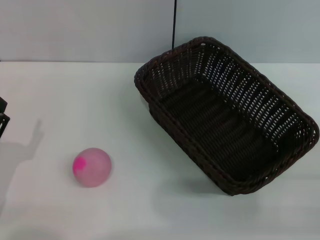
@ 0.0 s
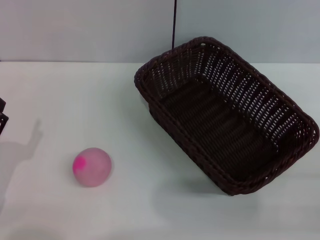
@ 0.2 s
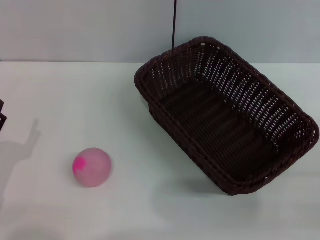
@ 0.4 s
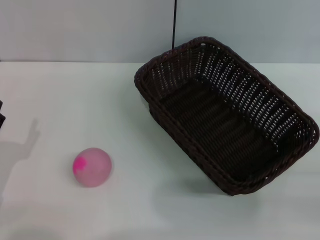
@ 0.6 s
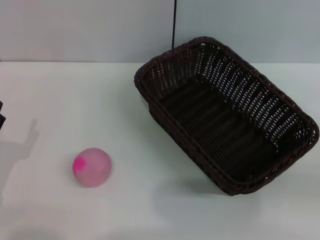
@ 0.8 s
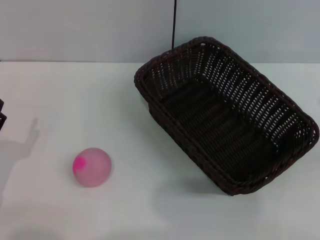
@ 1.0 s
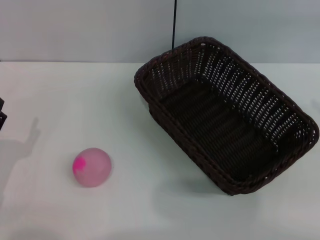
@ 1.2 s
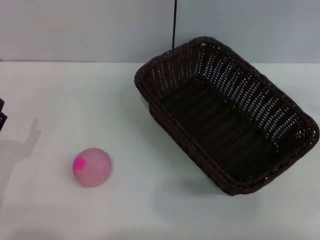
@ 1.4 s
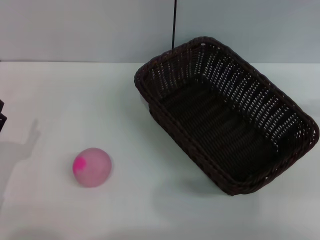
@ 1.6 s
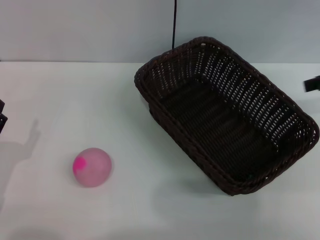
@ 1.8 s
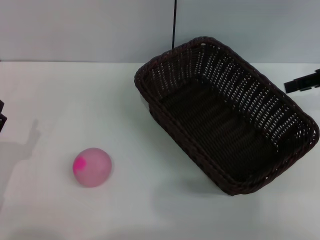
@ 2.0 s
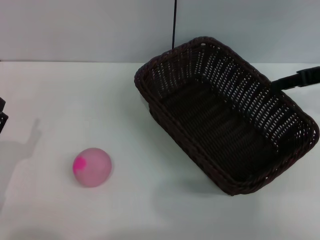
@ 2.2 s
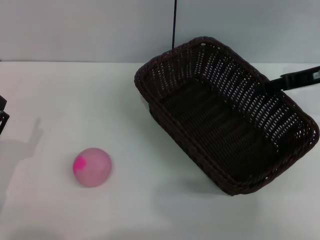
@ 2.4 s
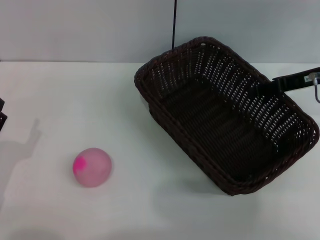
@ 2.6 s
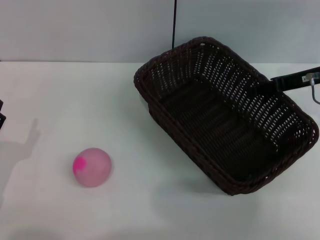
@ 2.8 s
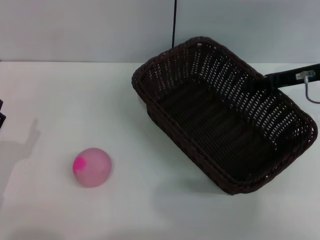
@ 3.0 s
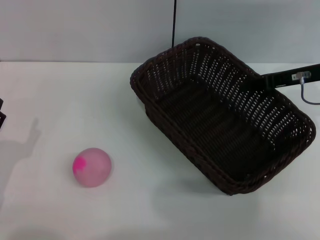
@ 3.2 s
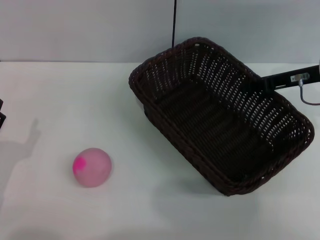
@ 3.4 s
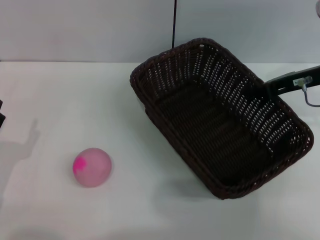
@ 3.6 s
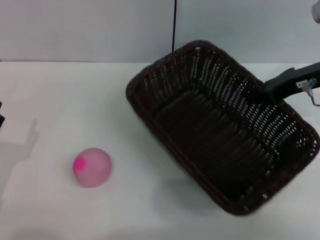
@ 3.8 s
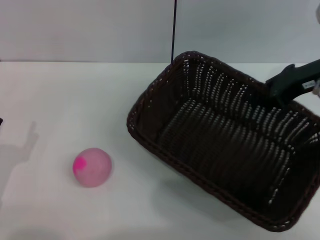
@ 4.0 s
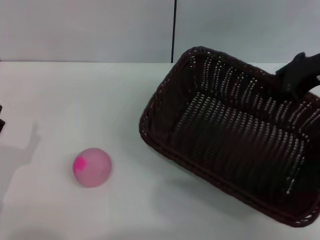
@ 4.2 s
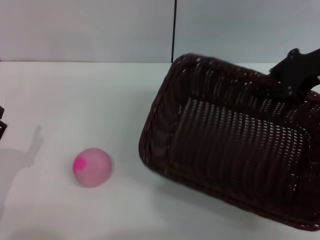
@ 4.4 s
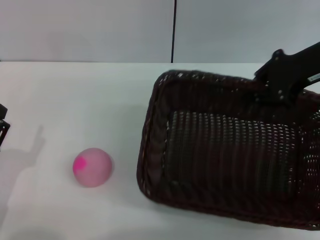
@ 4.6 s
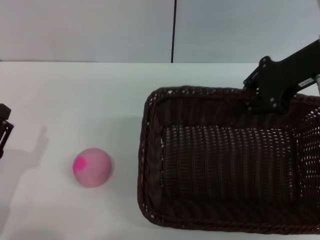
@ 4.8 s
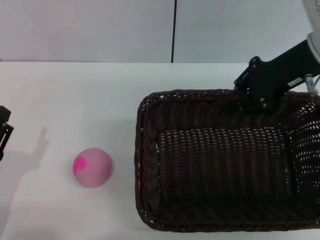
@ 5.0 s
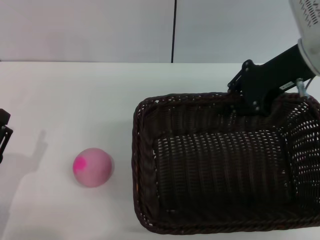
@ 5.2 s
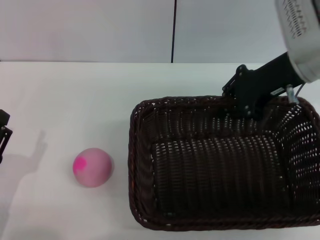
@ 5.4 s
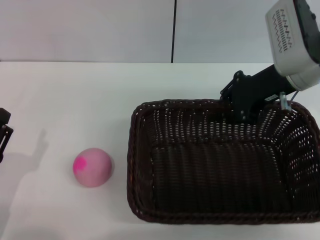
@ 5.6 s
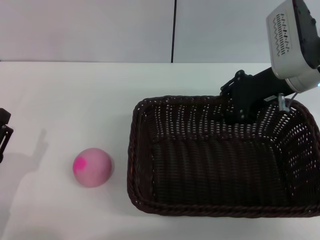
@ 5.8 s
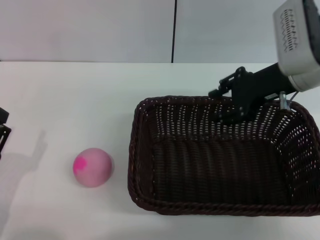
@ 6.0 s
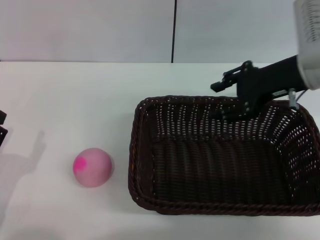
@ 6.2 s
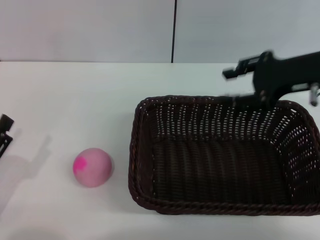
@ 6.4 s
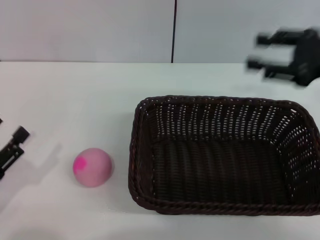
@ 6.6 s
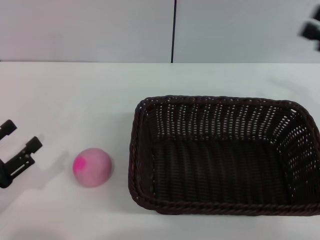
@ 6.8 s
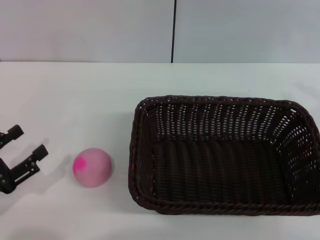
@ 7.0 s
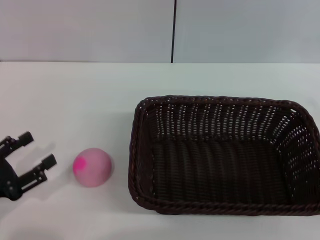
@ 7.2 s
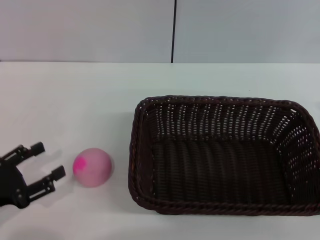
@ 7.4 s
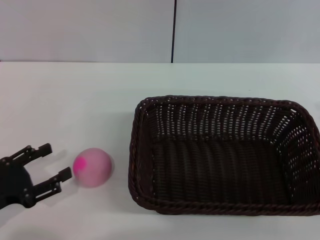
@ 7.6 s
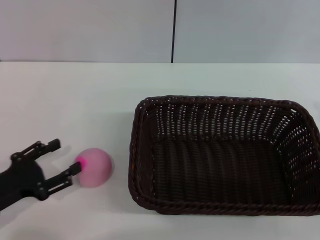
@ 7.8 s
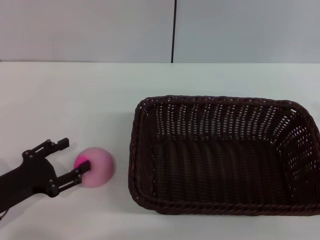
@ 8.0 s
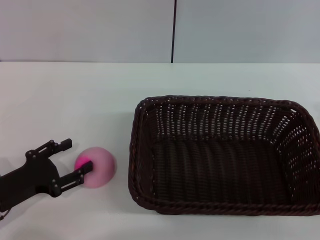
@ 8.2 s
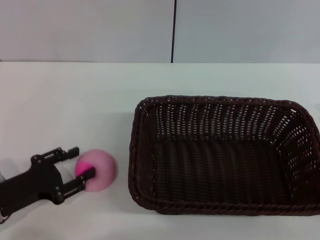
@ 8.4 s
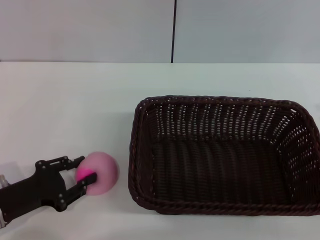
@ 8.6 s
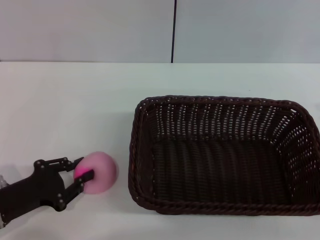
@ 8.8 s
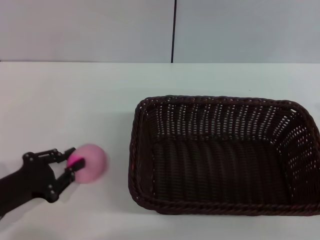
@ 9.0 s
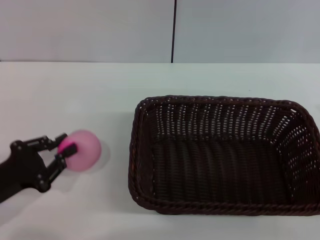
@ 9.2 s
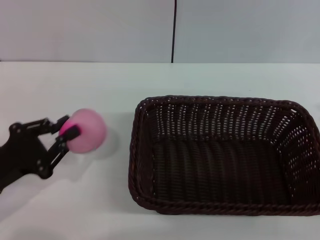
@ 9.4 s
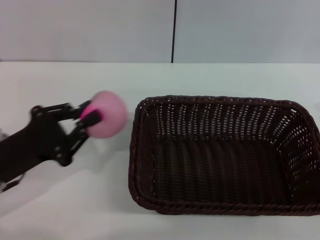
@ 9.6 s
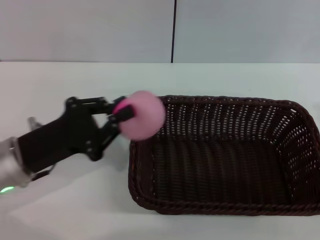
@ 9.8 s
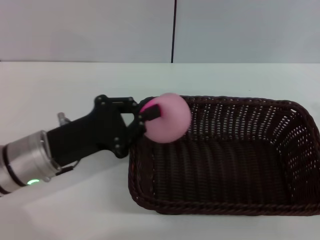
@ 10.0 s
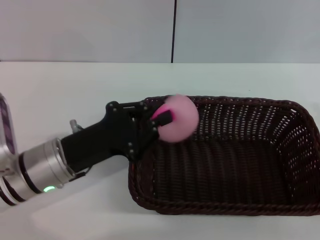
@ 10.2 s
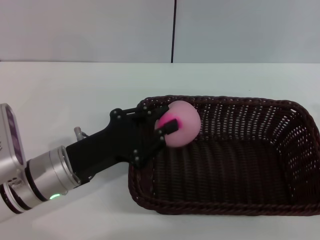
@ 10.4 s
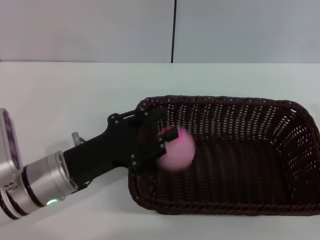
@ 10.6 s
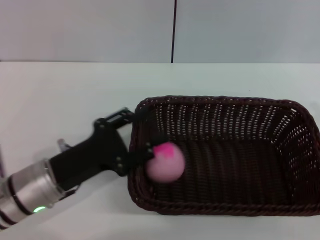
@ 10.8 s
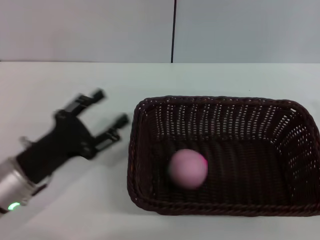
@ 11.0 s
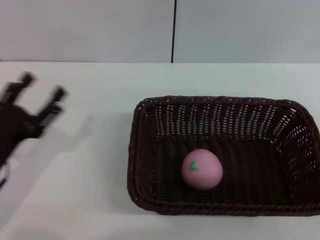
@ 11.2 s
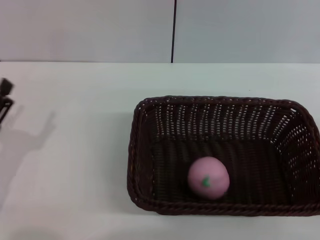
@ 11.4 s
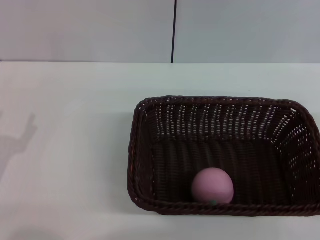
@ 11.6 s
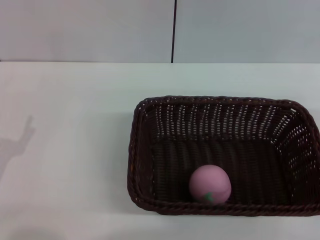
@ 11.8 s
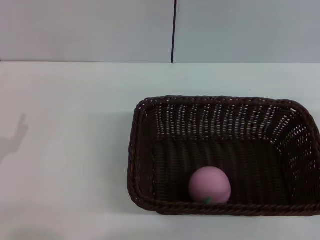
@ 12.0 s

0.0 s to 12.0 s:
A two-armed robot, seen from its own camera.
Step, 0.0 to 4.2 s: Pick up the dark basket with the right gripper.
Step, 4.4 to 6.2 s: Place the dark basket in the center of view with the right gripper.
Step, 6.6 to 9.4 s: Pick up the peach with the left gripper.
Step, 9.6 to 11.0 s: Place the peach into the basket with the left gripper.
0.0 to 1.6 s: The right gripper shifts roughly 25 cm upward and forward.
1.6 to 3.0 s: The right gripper is displaced to the left, downward and forward by roughly 15 cm.
3.0 to 4.4 s: The right gripper heads upward, covering approximately 5 cm, and closes up.
4.4 to 6.0 s: The right gripper travels to the left by approximately 5 cm, and opens its fingers.
6.0 to 7.6 s: The left gripper ends up about 5 cm from where it was, while the right gripper shifts approximately 25 cm backward, to the right and downward, and opens.
7.6 to 9.0 s: The left gripper closes up.
9.0 to 10.4 s: The left gripper goes some 10 cm to the right.
10.4 to 12.0 s: The left gripper moves to the left and backward, roughly 15 cm, and opens its fingers.

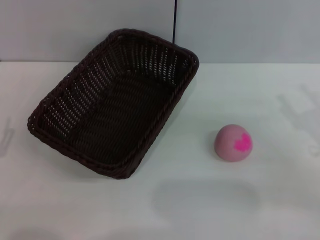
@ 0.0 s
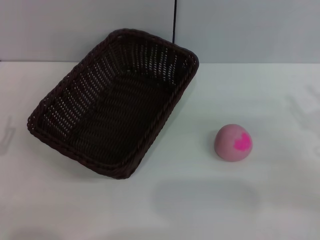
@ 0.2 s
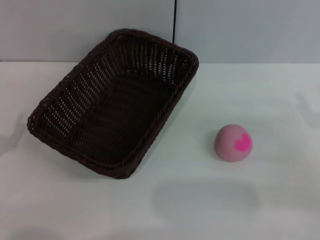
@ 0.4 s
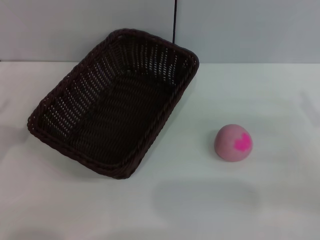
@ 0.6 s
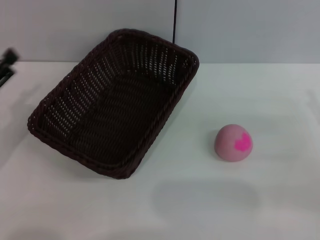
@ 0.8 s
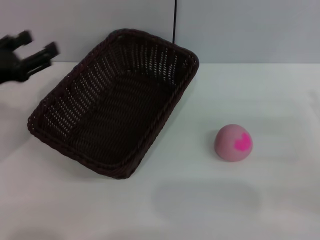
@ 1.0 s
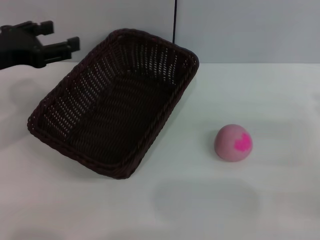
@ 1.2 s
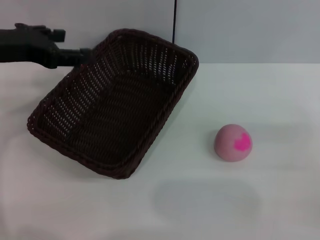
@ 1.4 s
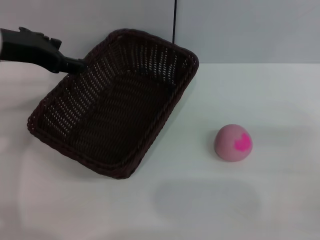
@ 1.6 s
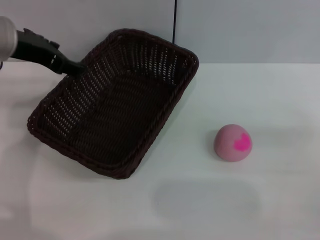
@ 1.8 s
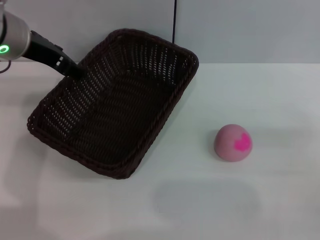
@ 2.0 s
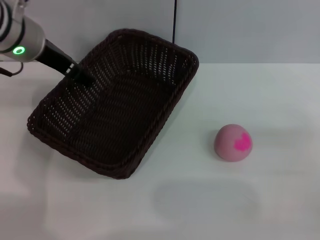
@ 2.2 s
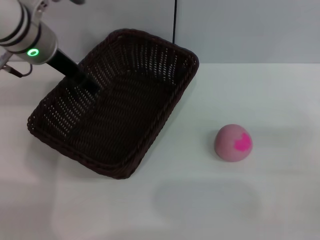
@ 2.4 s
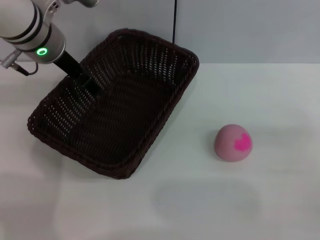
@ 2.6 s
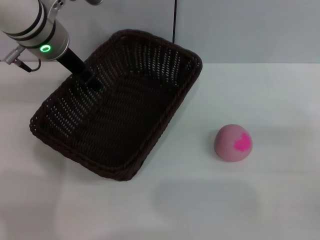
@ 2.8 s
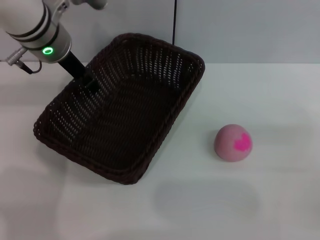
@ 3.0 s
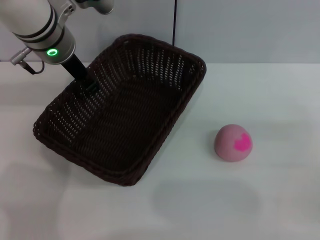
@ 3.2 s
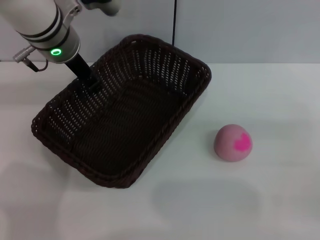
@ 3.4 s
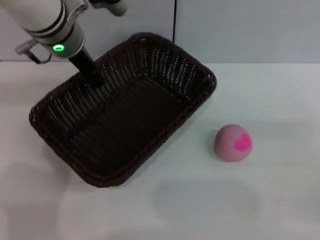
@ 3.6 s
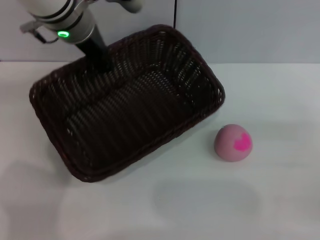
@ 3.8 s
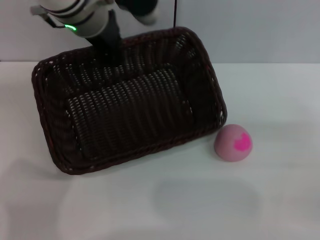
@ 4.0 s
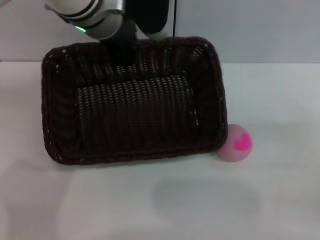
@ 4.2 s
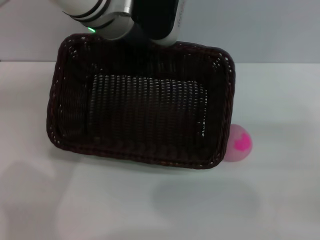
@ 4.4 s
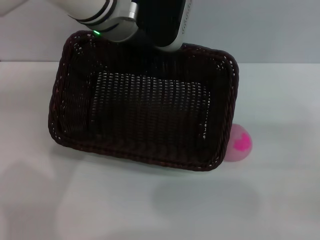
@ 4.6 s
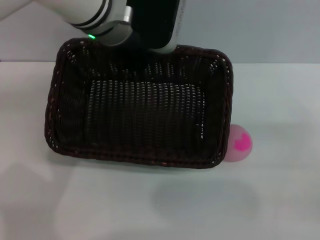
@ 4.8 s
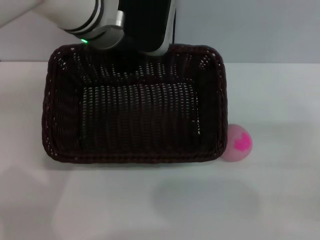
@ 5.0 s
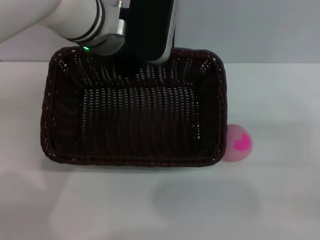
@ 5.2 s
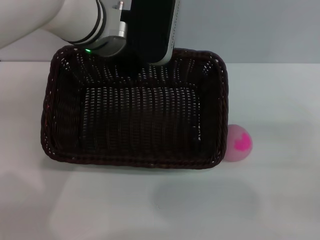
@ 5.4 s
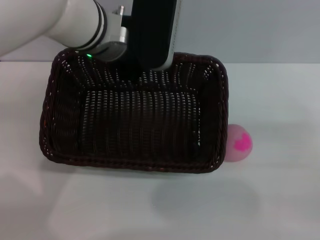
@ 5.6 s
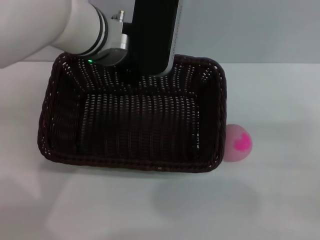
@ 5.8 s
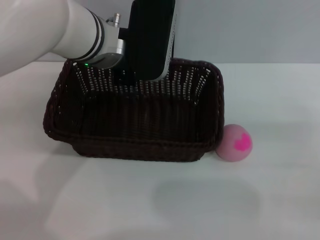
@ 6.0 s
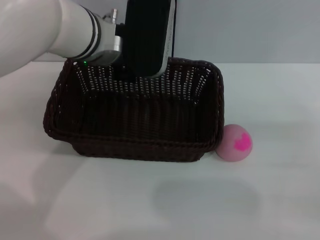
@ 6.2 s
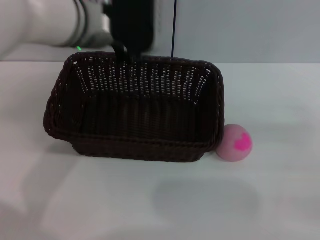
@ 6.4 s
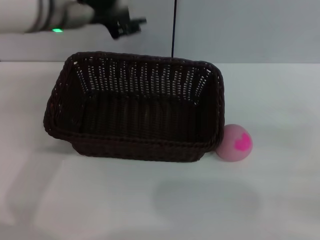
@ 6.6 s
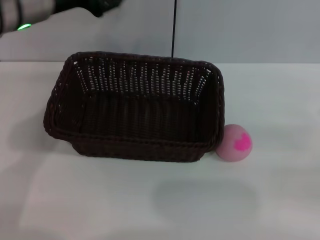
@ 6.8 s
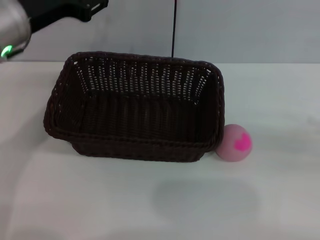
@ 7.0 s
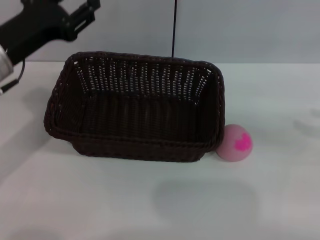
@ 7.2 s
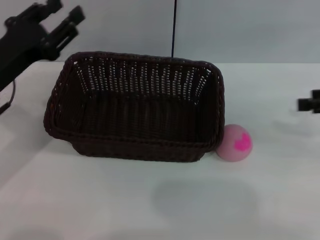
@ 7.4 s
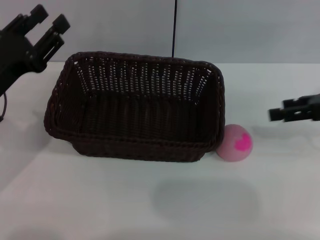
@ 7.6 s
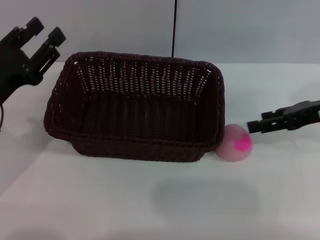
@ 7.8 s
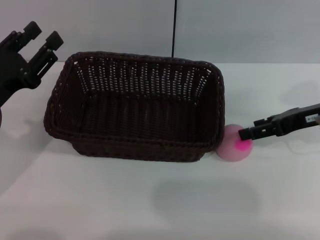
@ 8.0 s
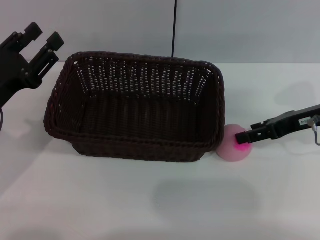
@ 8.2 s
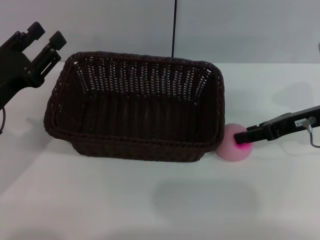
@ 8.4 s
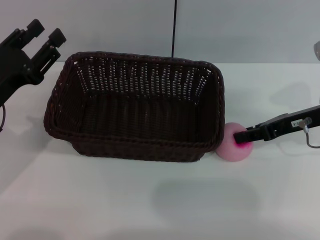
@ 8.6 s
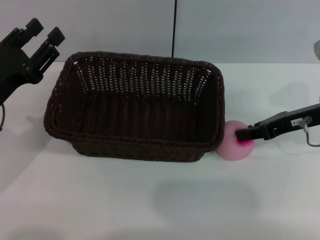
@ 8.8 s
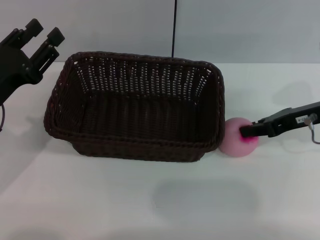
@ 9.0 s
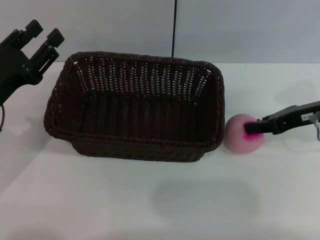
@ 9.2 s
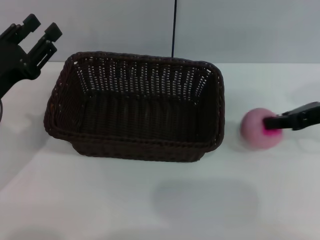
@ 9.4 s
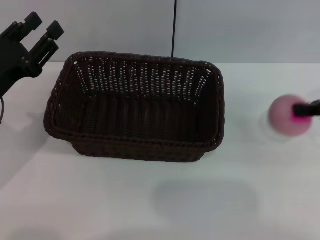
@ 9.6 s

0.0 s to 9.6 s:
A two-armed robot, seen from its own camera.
Step, 0.0 to 4.0 s: Pick up the dark basket with the left gripper.
0.0 to 1.6 s: The left gripper goes some 30 cm upward, forward and to the right.
1.6 to 3.2 s: The left gripper shifts some 10 cm to the right and forward, and closes its fingers.
3.2 to 4.8 s: The left gripper is displaced to the right by approximately 5 cm, and closes its fingers.
4.8 to 6.4 s: The left gripper opens.
6.4 to 8.0 s: The right gripper is displaced forward and to the left by roughly 15 cm, while the left gripper shifts about 25 cm to the left, downward and backward.
8.0 to 9.6 s: The right gripper shifts by approximately 5 cm, and closes its fingers.
